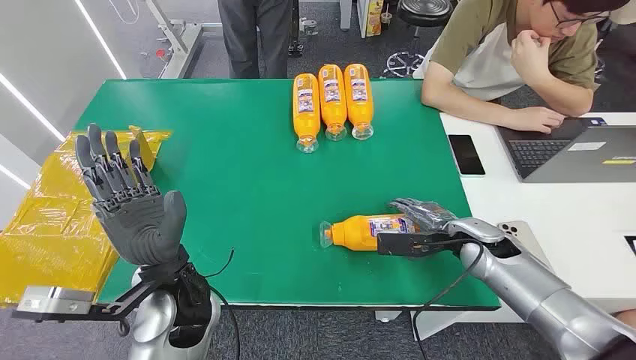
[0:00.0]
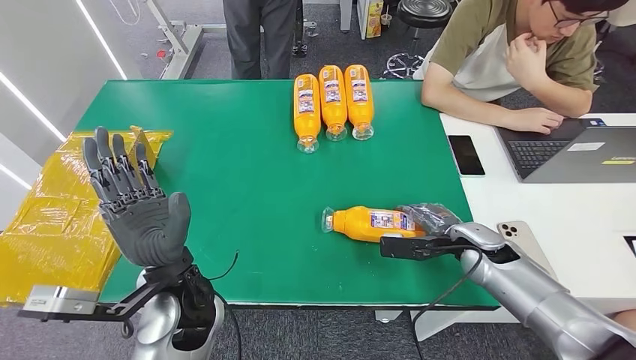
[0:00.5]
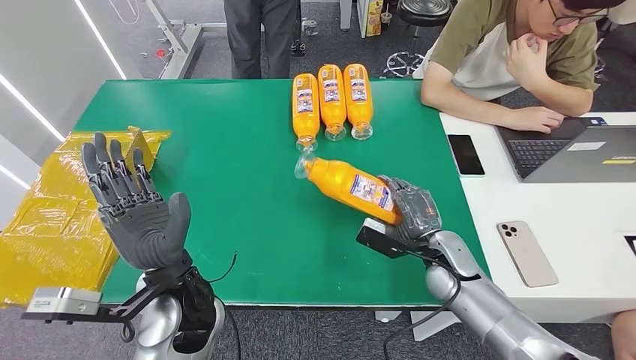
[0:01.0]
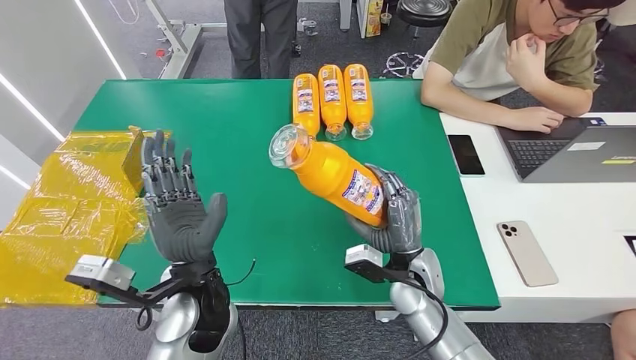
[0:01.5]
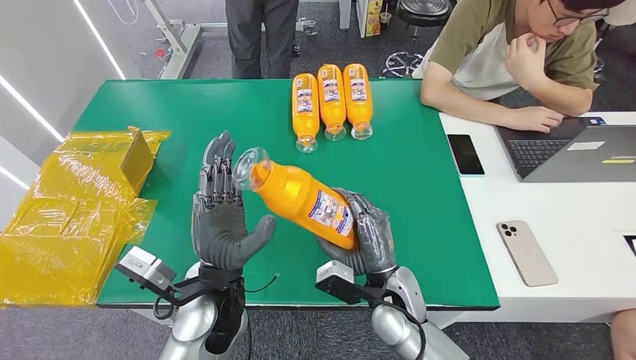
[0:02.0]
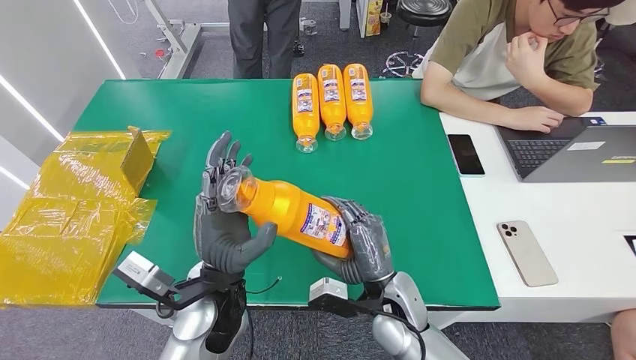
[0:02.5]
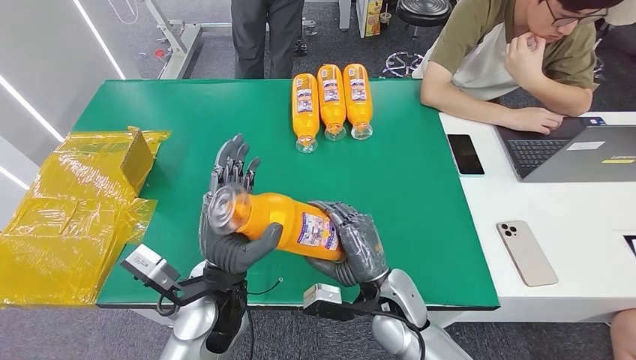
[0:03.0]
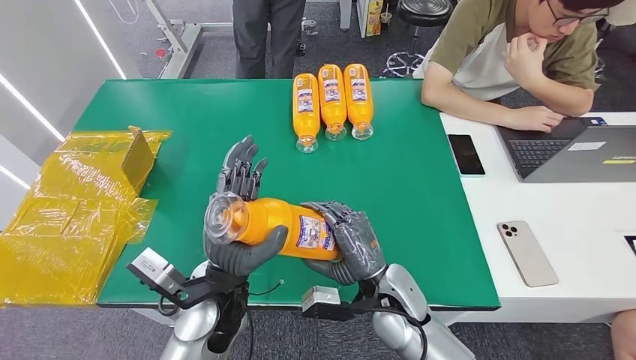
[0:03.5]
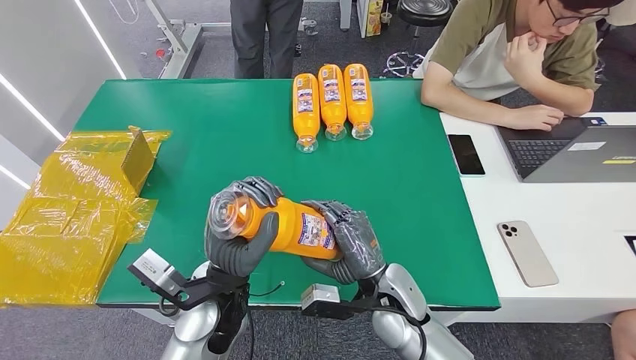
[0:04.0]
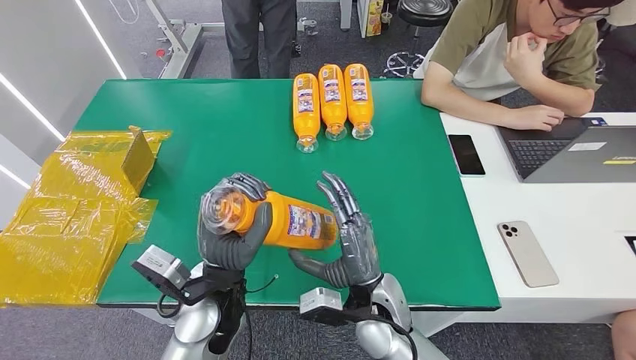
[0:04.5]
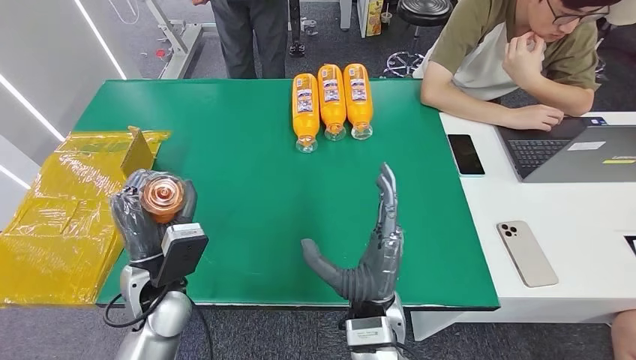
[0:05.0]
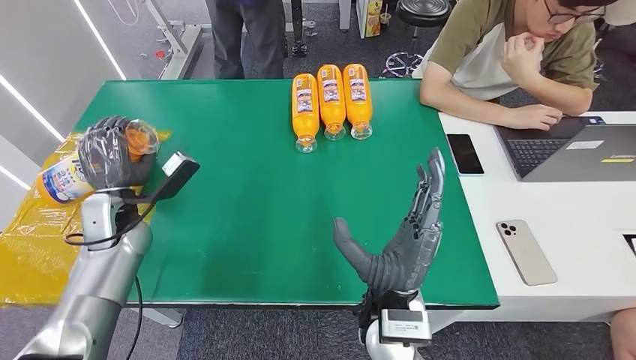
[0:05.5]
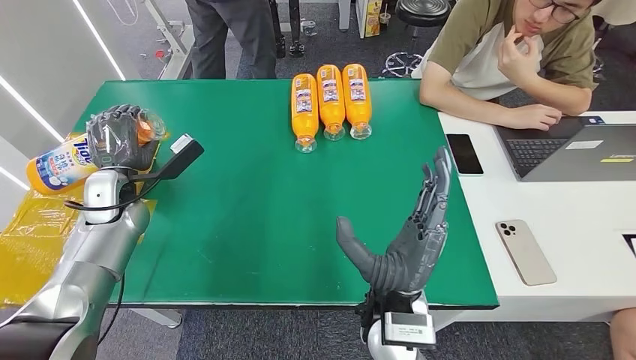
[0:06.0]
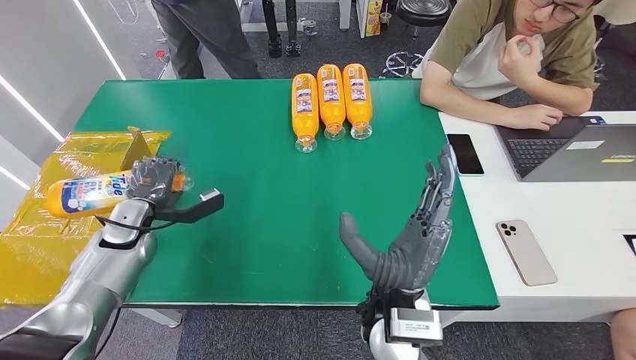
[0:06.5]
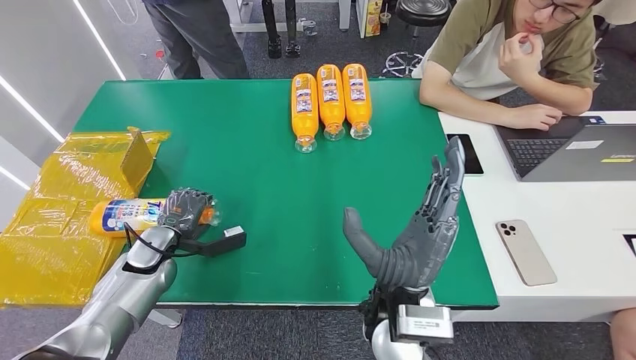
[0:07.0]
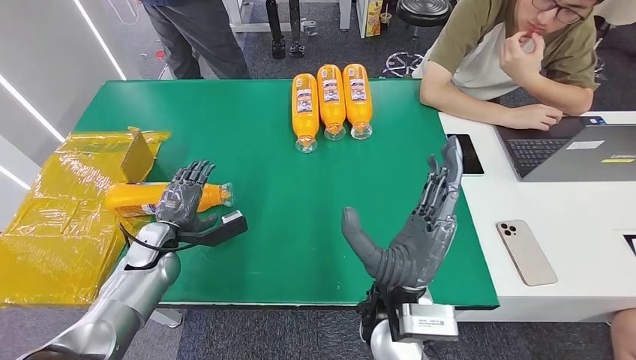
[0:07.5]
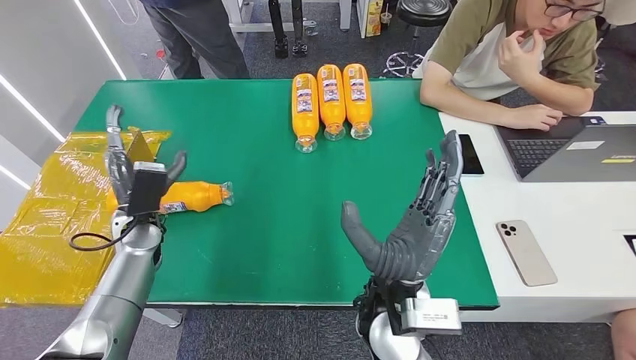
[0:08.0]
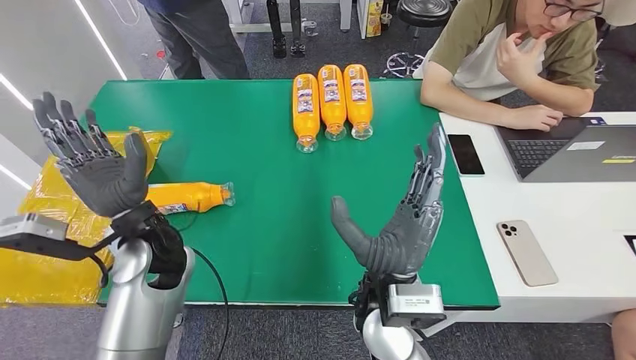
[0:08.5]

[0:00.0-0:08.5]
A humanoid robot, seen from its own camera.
Step, 0:00.0 to 0:03.0: Pick up the bottle from the table.
Step, 0:03.5 to 0:08.5: Turn the bottle to the front side.
0:02.0 to 0:04.0: The hands make only small movements.

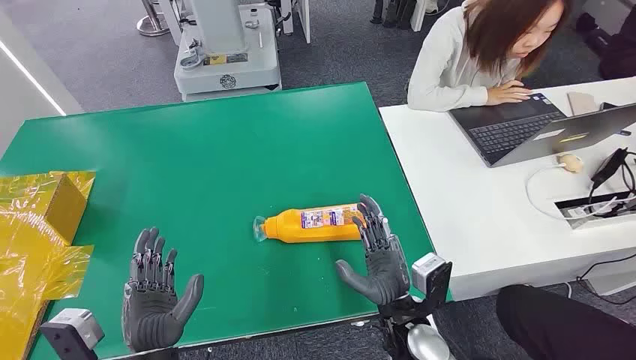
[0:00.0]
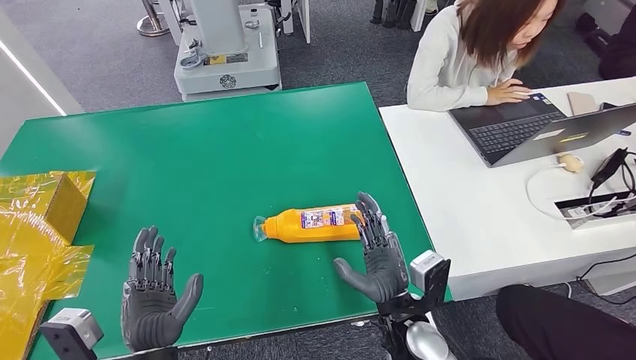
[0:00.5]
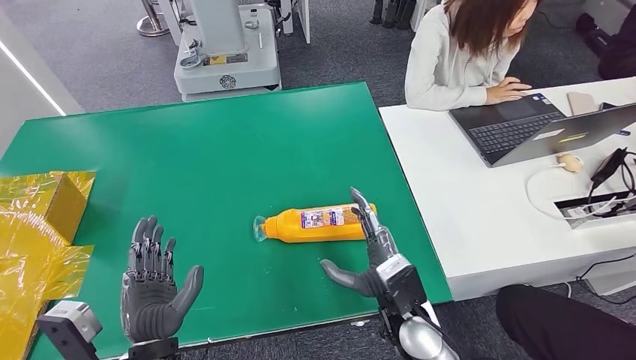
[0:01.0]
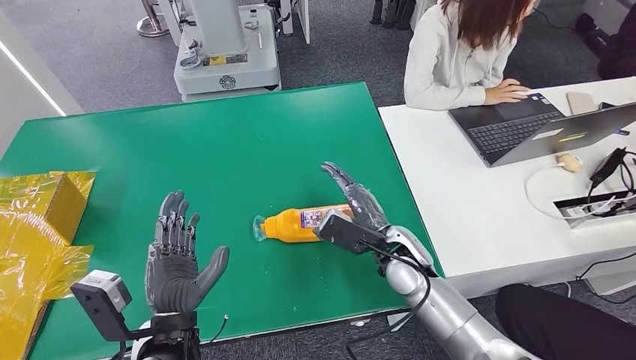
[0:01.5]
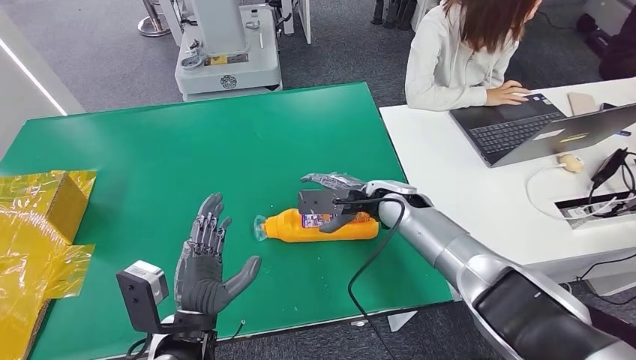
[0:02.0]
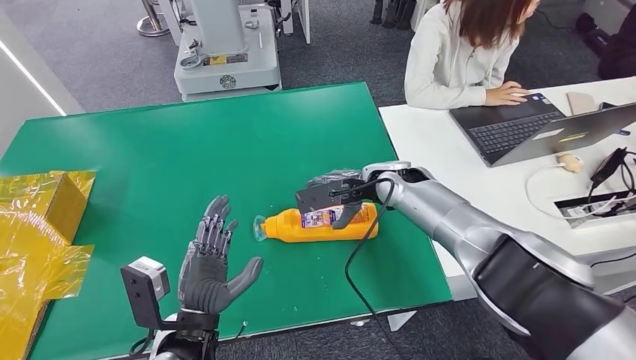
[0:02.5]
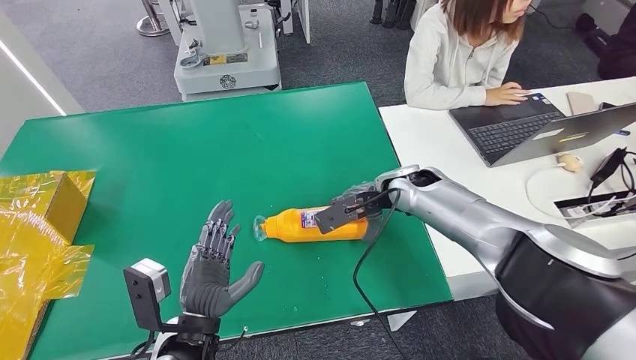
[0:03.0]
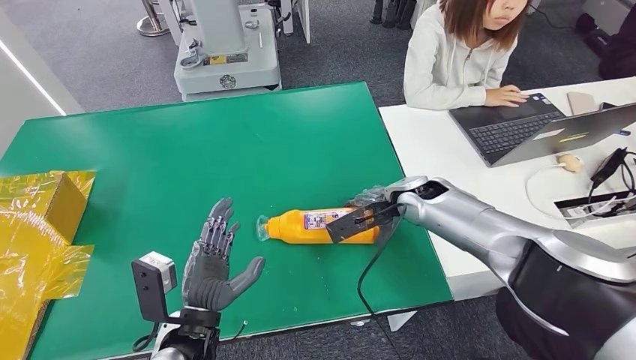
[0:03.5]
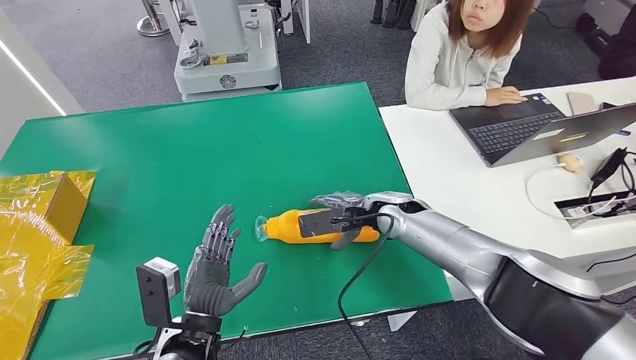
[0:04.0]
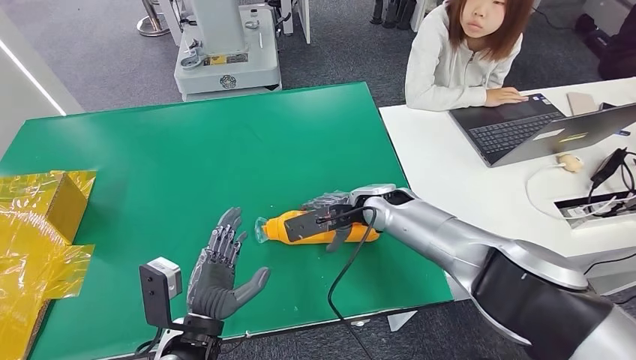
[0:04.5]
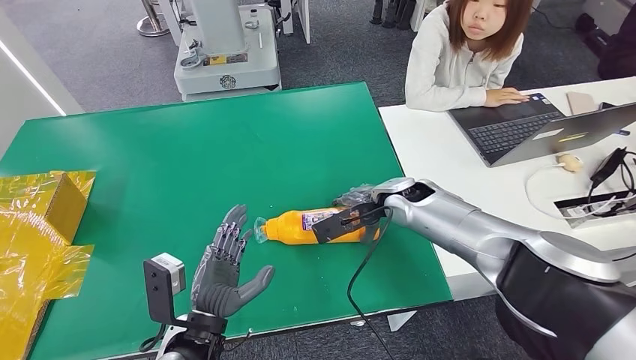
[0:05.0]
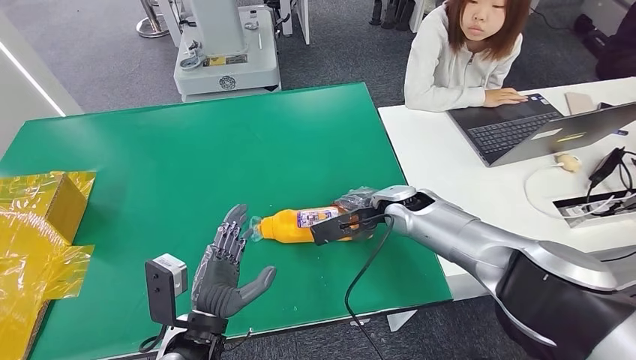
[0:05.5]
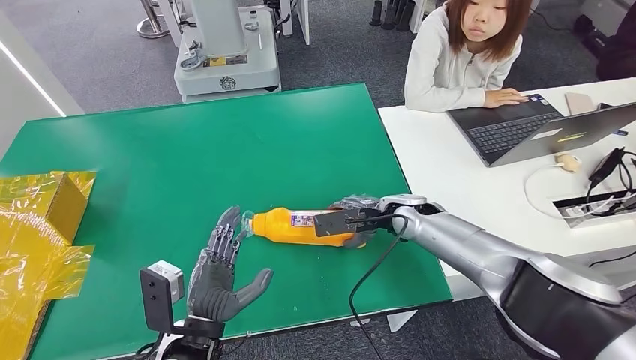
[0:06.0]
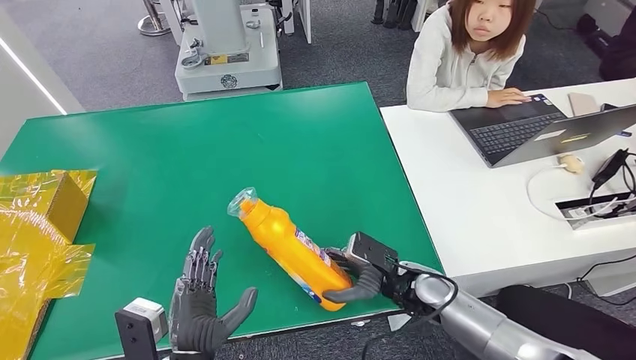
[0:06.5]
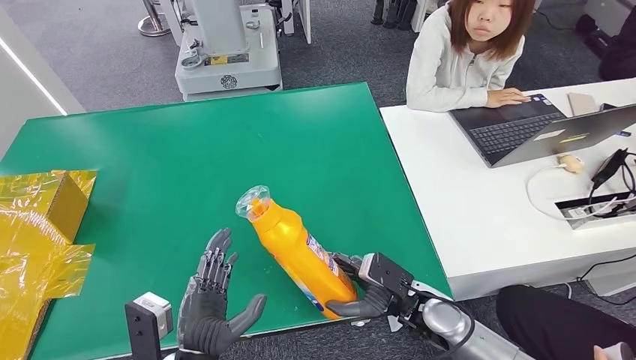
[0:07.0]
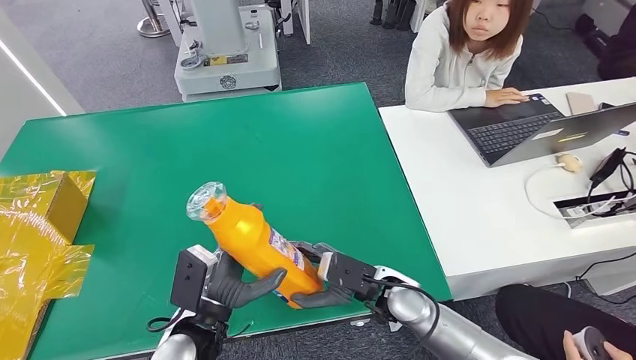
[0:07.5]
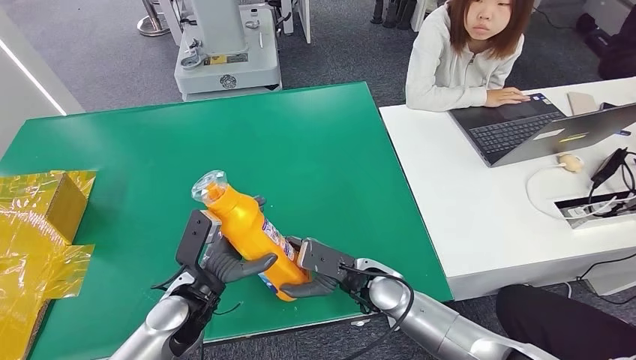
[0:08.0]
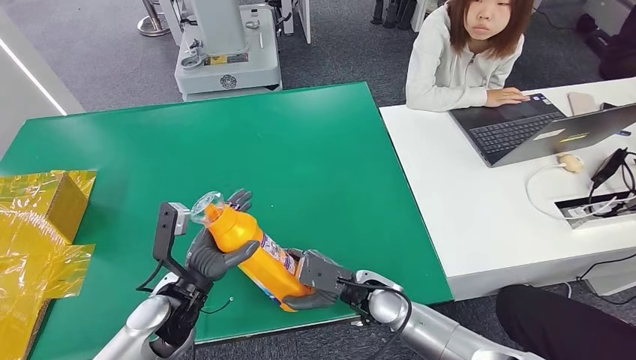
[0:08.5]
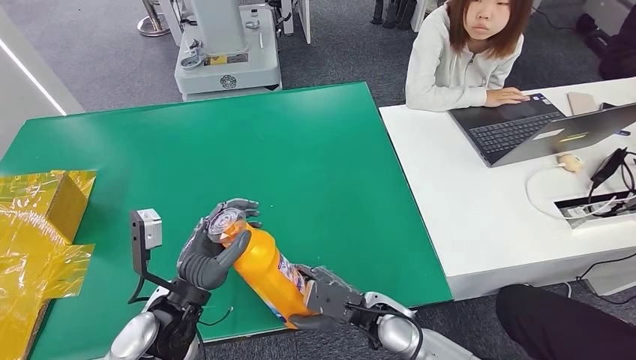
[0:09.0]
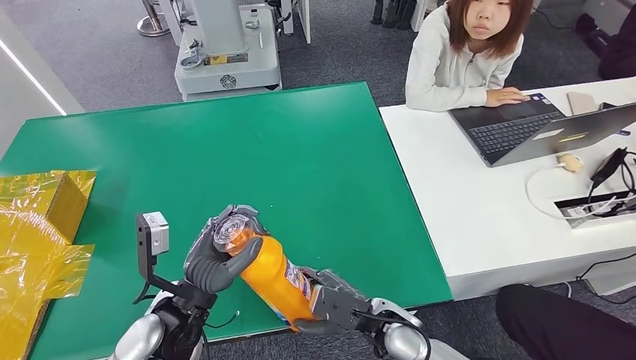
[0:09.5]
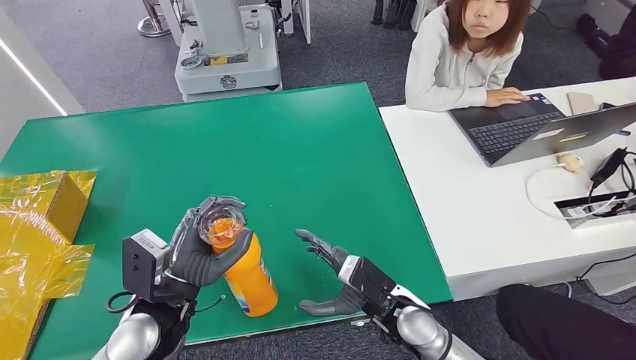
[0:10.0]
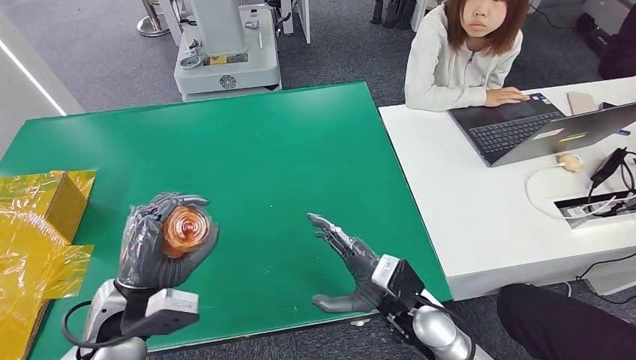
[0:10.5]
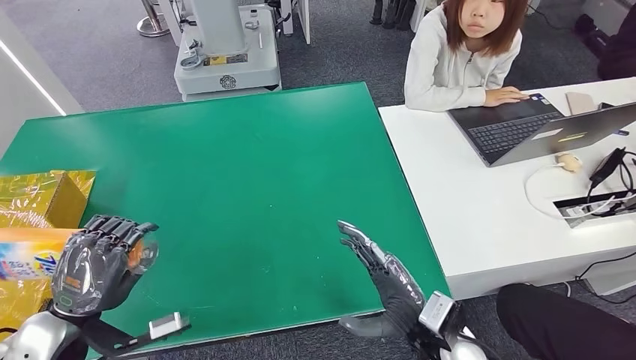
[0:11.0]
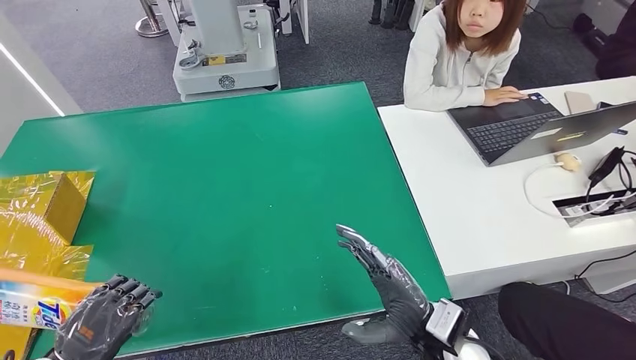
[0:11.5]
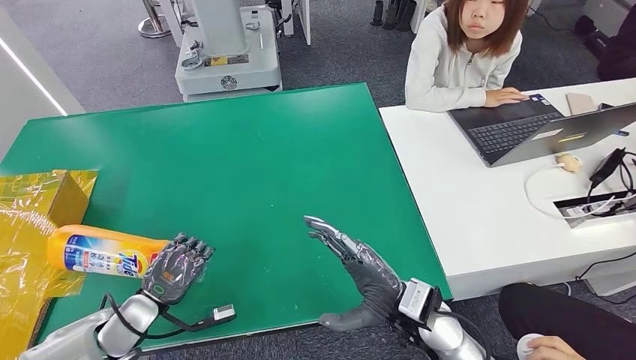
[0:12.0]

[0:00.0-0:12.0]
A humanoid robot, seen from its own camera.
Step, 0:00.0 to 0:06.5: Pick up the bottle from the table.
0:08.0 to 0:10.0: The right hand goes roughly 5 cm backward, while the left hand moves upward, approximately 10 cm.
0:10.0 to 0:12.0: The left hand is displaced to the left by roughly 5 cm.
